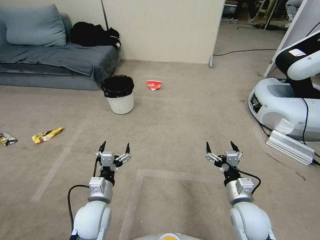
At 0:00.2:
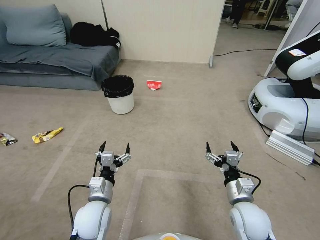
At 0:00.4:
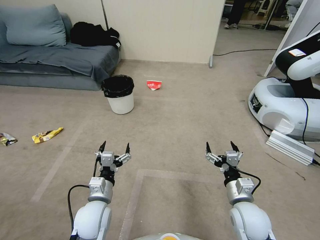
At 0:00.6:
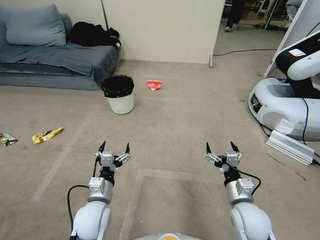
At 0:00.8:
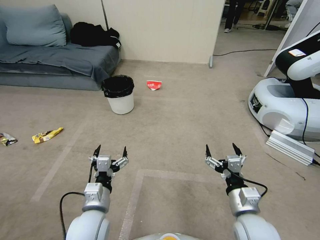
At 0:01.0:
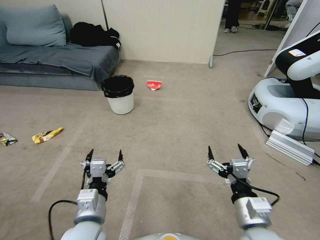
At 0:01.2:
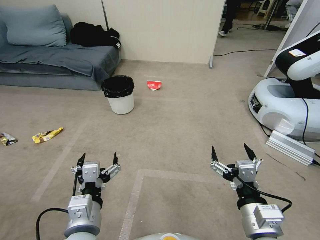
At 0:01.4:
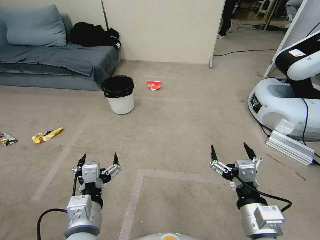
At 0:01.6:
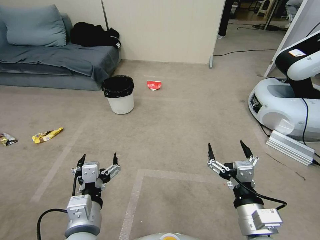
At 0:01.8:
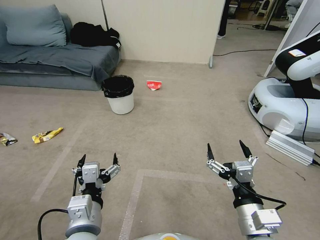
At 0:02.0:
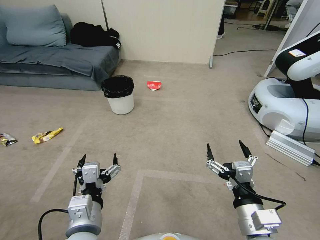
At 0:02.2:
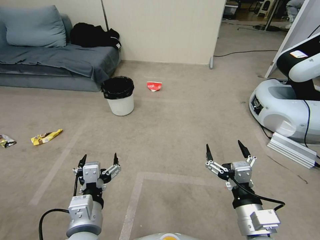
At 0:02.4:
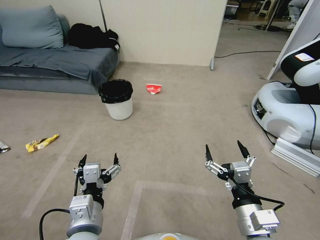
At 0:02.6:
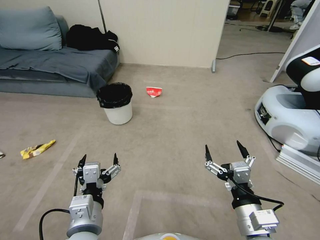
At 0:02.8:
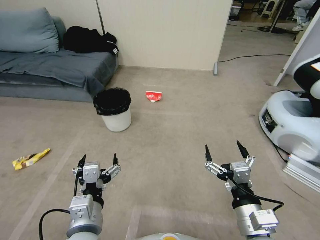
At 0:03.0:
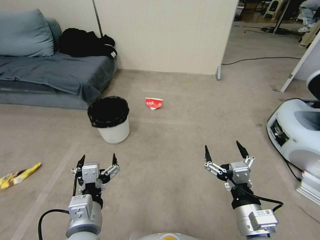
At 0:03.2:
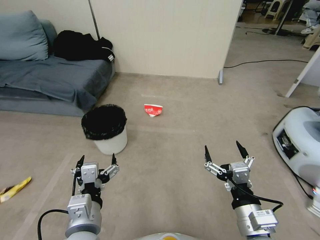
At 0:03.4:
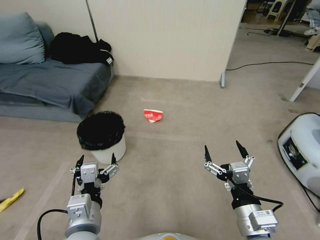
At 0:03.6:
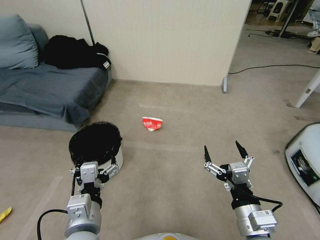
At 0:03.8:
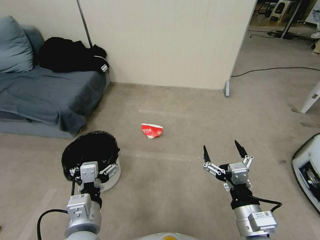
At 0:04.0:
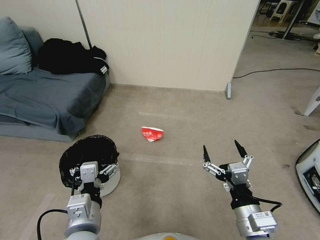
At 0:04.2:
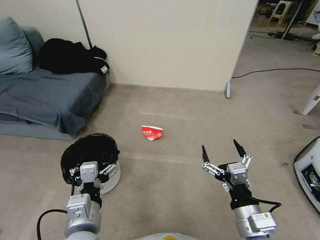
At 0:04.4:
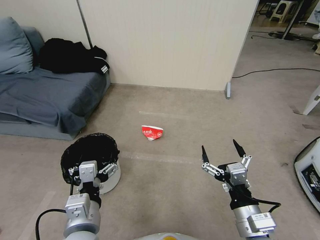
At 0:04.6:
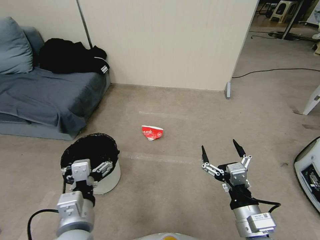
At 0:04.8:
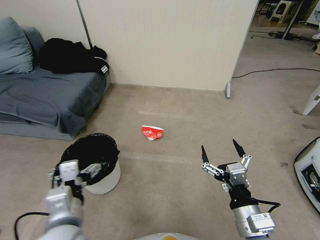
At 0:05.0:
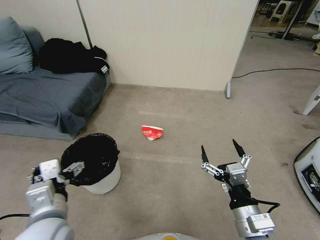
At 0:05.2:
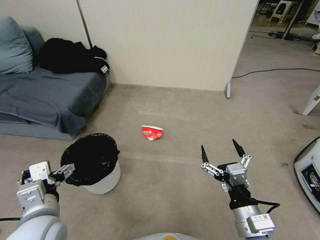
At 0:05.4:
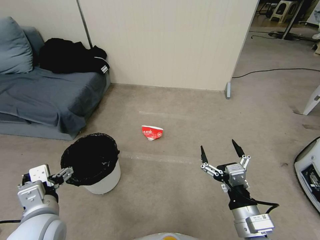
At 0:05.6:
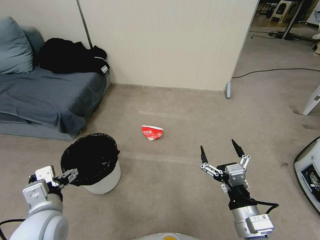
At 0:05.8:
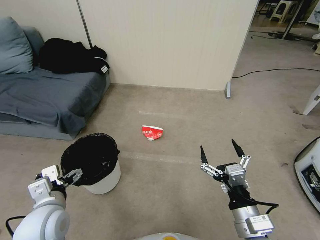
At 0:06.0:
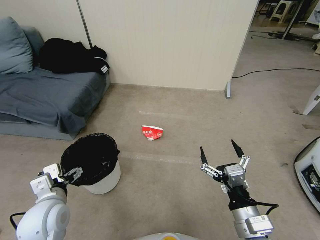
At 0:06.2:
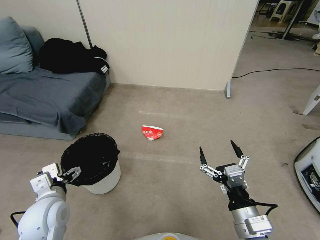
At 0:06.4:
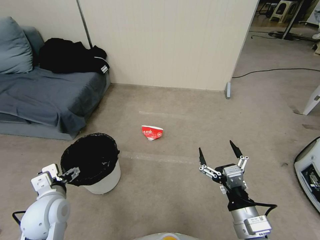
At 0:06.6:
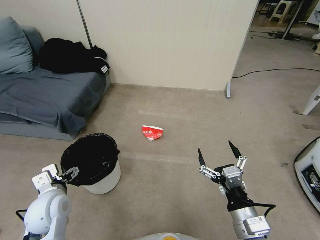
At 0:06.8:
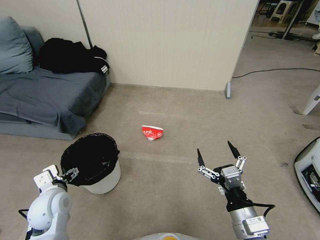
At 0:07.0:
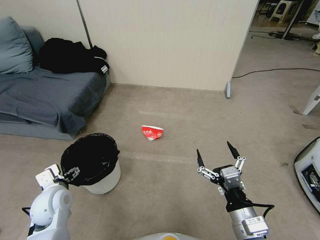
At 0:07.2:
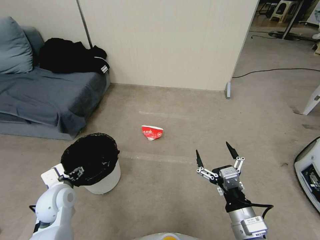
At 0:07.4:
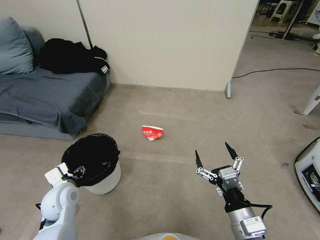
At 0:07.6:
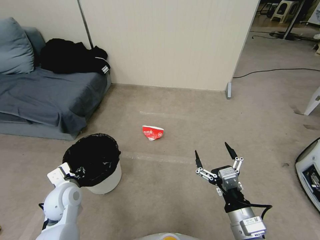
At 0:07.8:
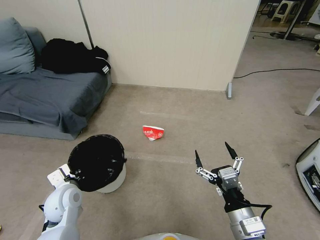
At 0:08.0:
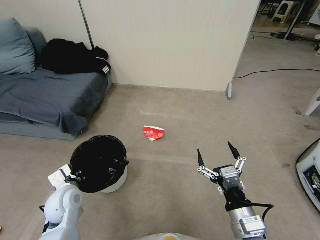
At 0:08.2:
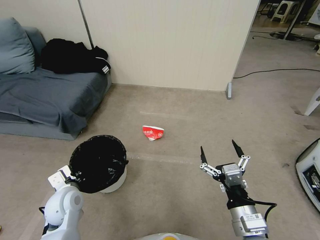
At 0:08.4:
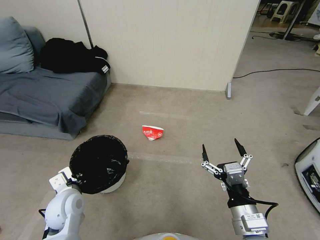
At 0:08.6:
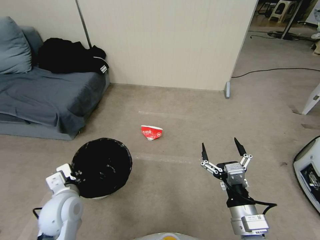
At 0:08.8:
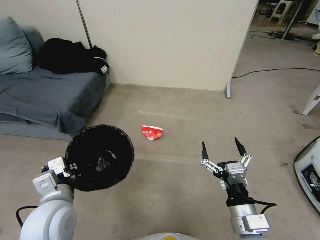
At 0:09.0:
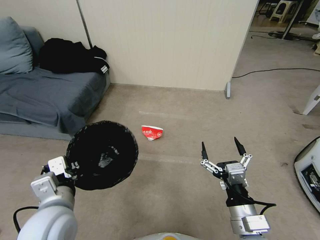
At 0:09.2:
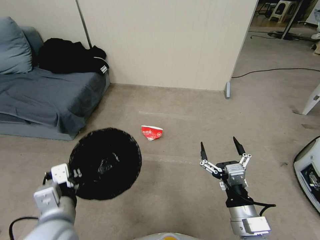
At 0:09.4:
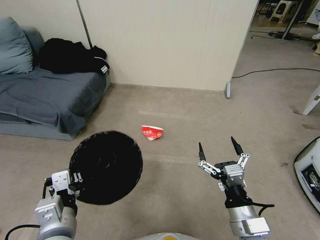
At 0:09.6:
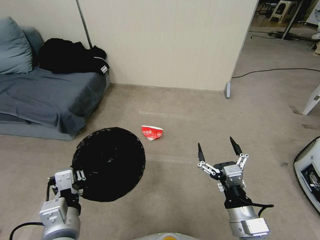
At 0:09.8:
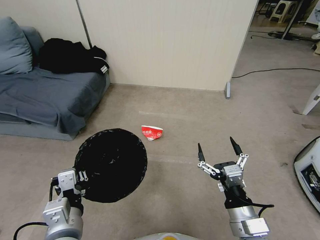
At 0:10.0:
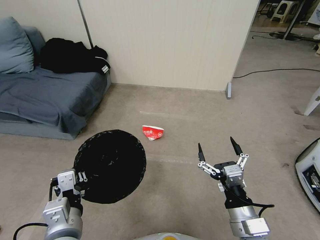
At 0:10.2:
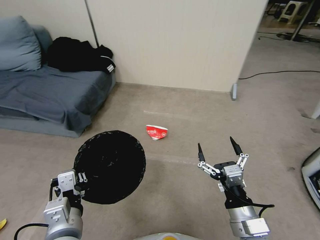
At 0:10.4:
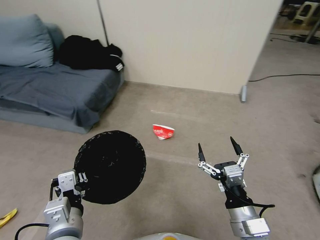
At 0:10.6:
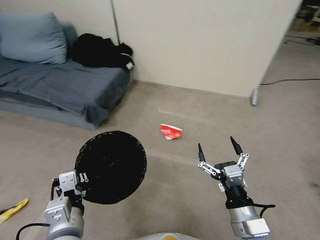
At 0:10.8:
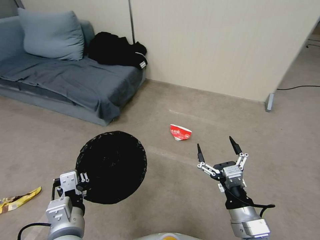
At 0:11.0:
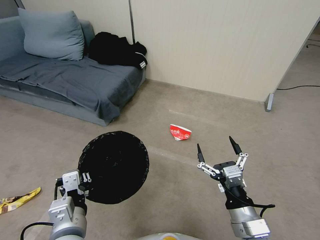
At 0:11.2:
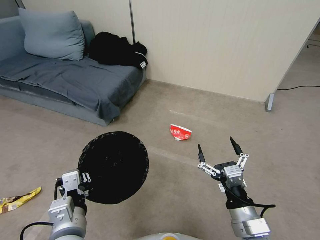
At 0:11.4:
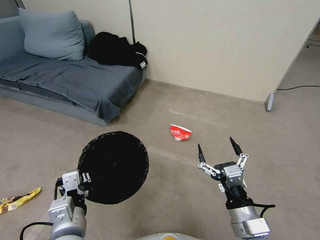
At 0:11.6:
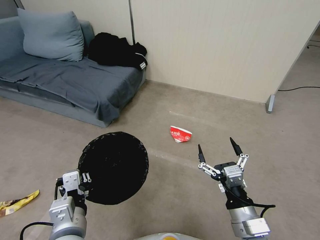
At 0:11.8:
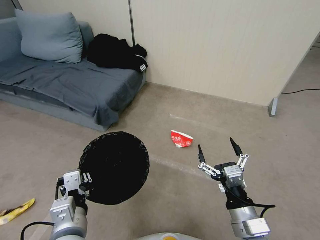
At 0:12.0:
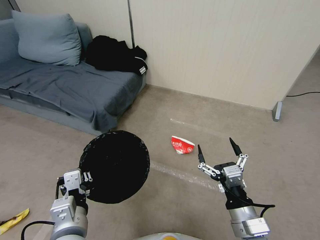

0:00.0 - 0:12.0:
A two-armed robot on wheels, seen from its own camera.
Task of the whole recording: Pick up the trash bin, then pick up the garbage from the floor and place it into the trash bin.
0:04.4 - 0:06.0: The left gripper shifts some 15 cm to the left and forward.
0:06.0 - 0:07.6: The left gripper shifts some 10 cm downward and forward, and closes up.
0:07.6 - 0:09.0: The left gripper moves upward, backward and to the right, roughly 15 cm, and closes up.
0:09.0 - 0:10.4: The left gripper moves roughly 5 cm.

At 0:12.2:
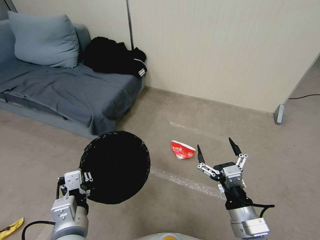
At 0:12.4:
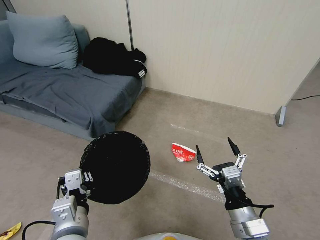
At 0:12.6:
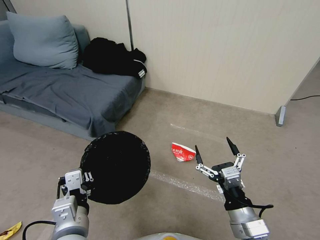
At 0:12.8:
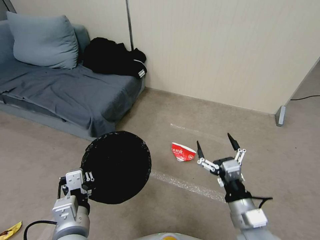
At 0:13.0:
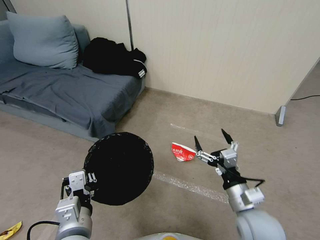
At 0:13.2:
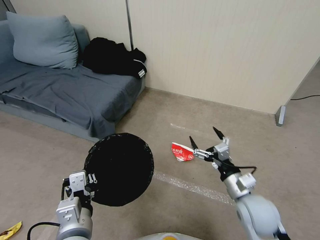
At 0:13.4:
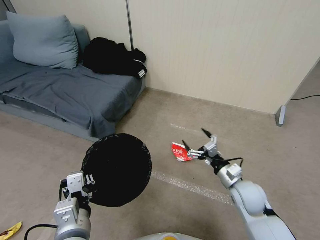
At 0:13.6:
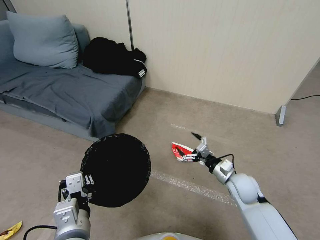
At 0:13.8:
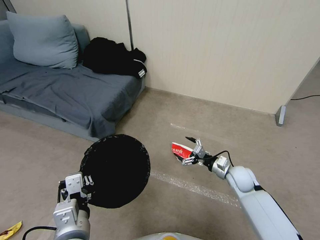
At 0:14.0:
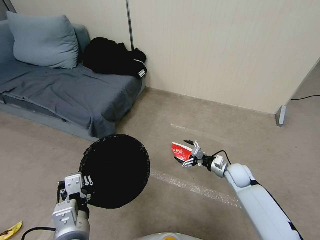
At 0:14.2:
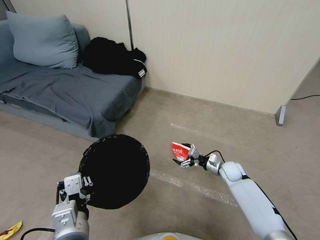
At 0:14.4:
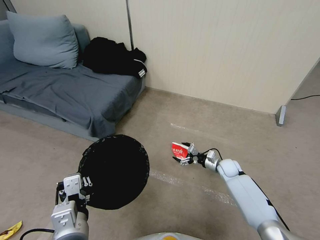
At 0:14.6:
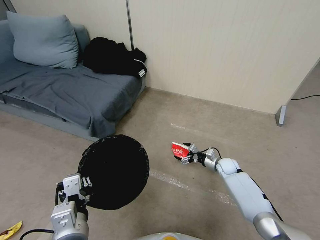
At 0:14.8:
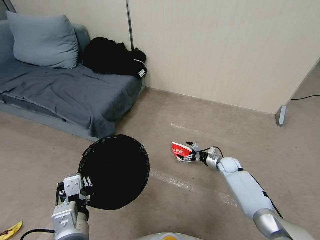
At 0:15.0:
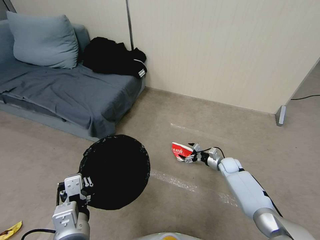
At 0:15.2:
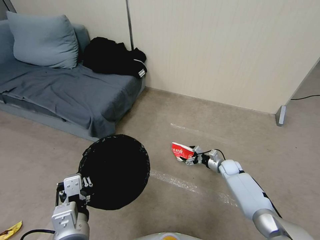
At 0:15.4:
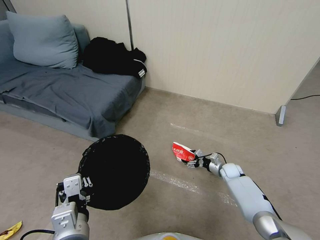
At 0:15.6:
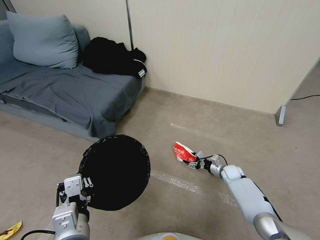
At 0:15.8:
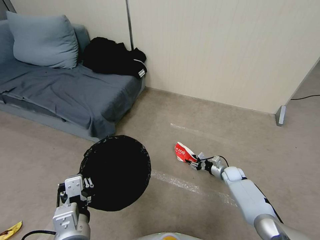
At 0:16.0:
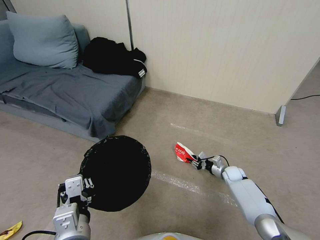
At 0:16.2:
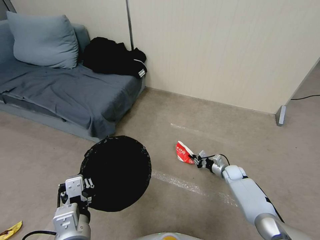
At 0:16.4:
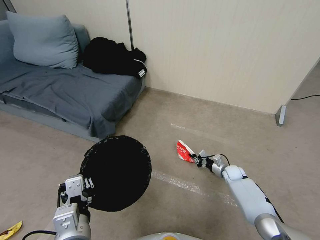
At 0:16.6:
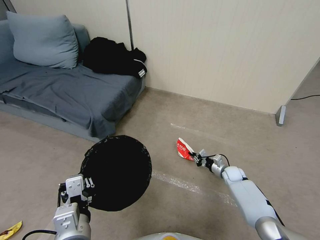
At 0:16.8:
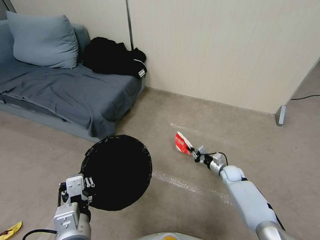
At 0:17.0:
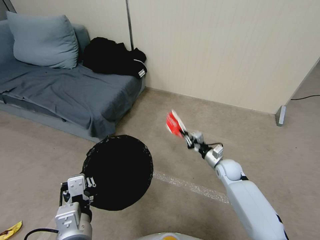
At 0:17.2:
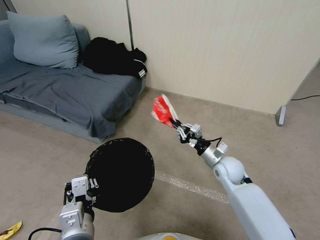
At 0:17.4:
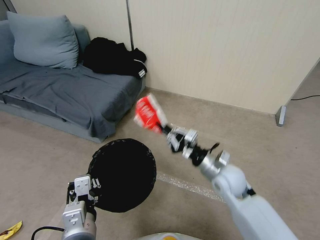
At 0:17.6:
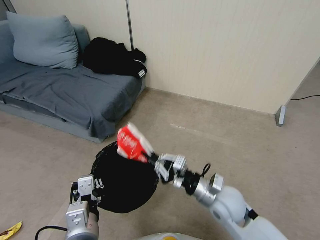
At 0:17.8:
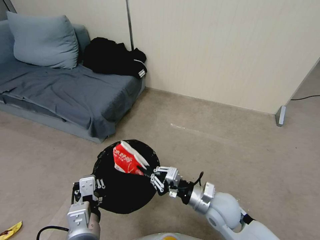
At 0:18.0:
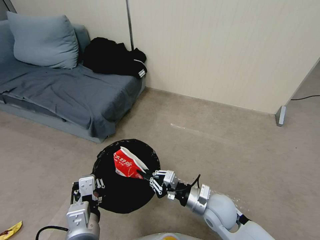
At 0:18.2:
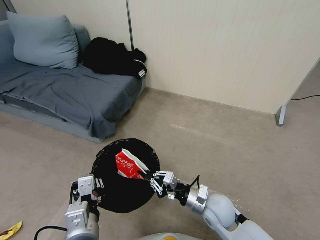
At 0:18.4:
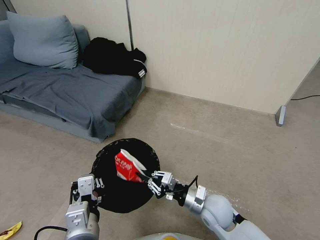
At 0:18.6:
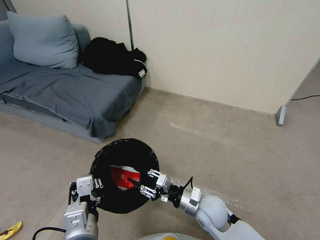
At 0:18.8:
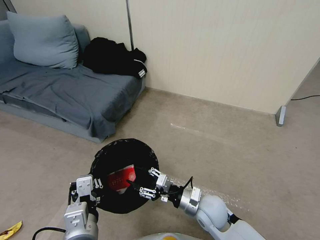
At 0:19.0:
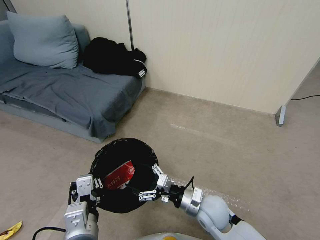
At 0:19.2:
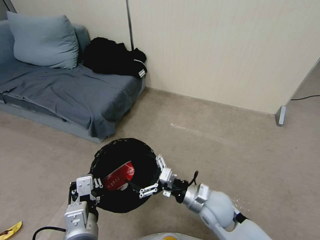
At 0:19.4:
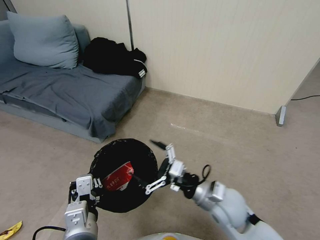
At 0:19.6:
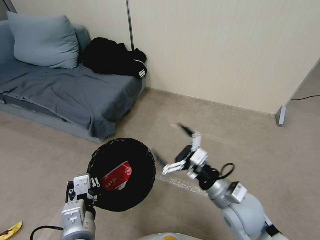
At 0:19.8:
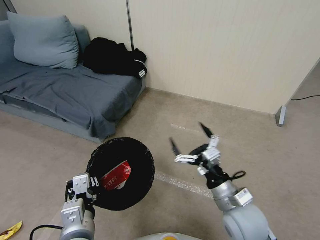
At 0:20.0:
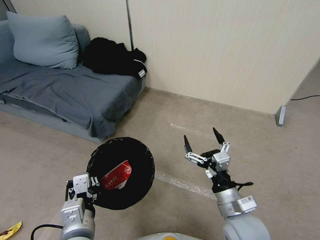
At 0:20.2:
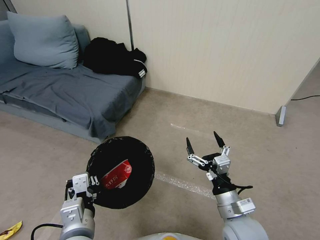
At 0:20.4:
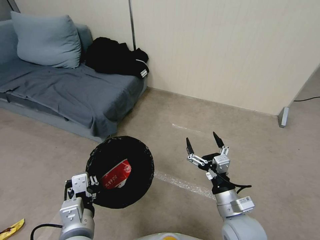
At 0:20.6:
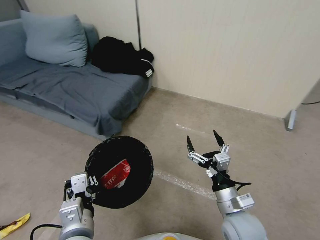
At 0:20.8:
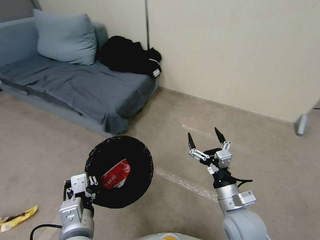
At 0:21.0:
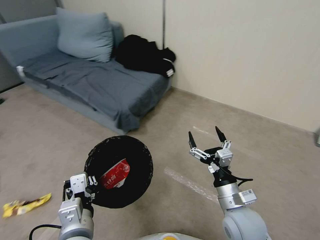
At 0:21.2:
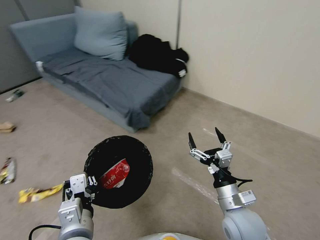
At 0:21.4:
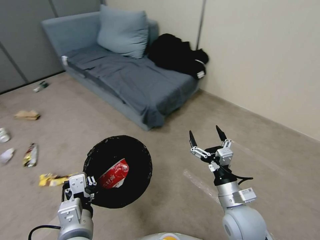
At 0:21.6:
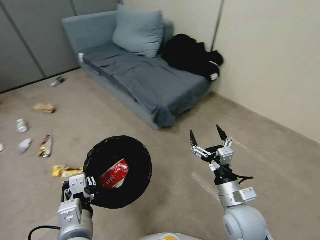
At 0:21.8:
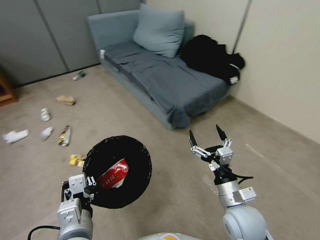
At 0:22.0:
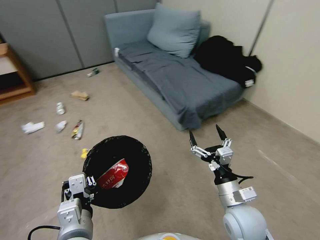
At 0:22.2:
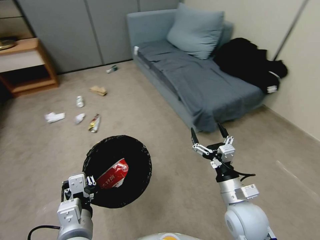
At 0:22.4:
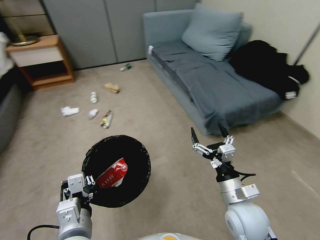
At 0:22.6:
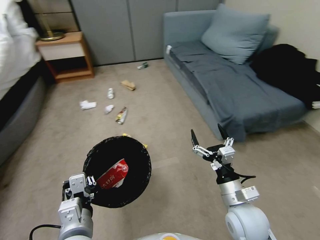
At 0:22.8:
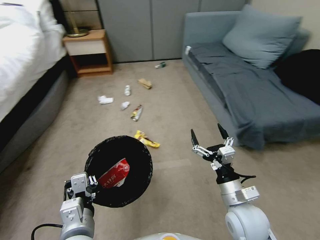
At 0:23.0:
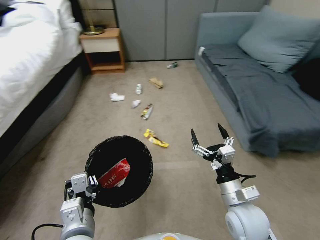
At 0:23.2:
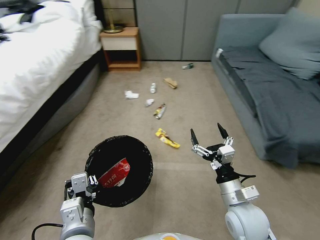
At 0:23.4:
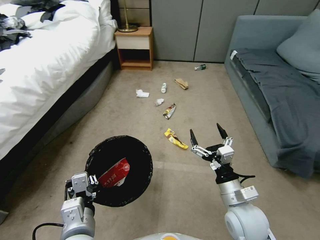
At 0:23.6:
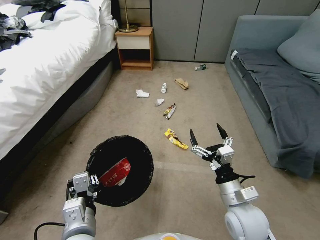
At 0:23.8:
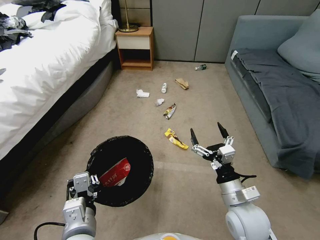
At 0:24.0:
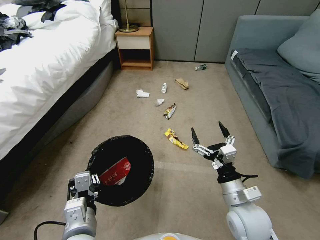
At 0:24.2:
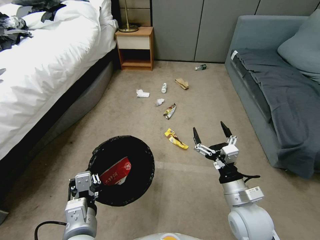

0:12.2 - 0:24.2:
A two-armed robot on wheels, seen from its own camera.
Task of the whole recording: Pick up the trash bin, then pick up the garbage from the floor and place it into the trash bin.
0:12.2 - 0:13.8: The right gripper is displaced forward and downward by some 25 cm.
0:13.8 - 0:15.2: The right gripper goes approximately 15 cm downward and forward.
0:15.2 - 0:16.6: The right gripper closes up.
0:16.6 - 0:18.2: The right gripper is displaced backward, to the left and upward by approximately 30 cm.
0:18.2 - 0:19.8: The right gripper travels upward by about 10 cm, and opens up.
